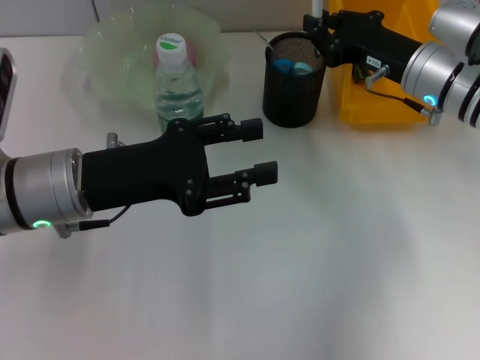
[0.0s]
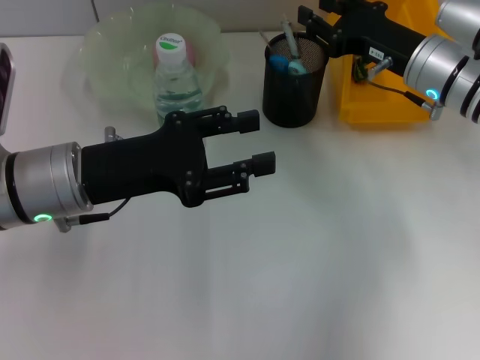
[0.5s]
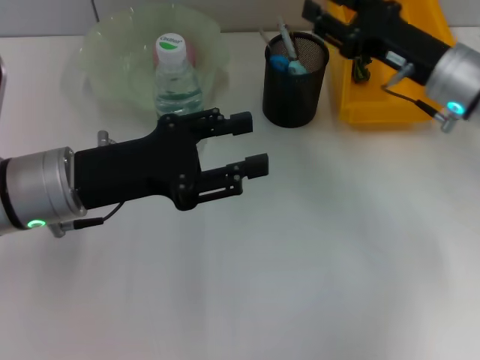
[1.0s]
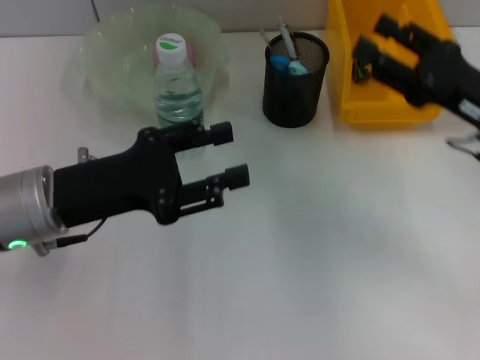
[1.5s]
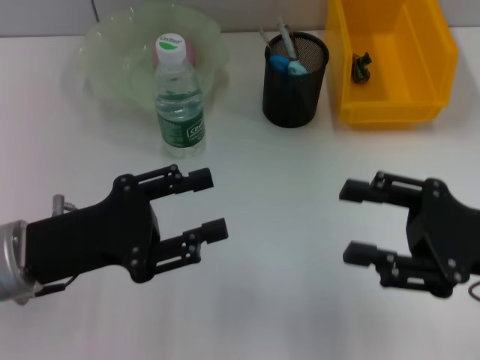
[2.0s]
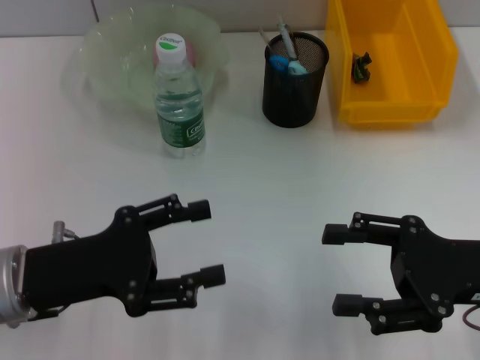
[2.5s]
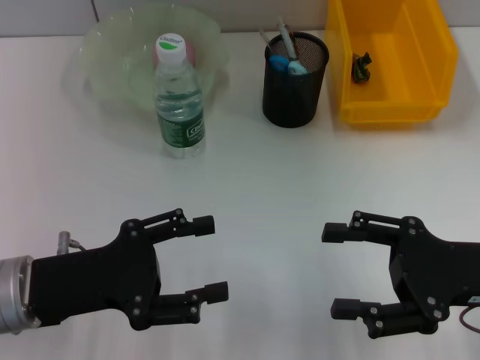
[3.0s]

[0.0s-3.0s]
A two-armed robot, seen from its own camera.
0.0s to 1.5s: The right gripper is displaced backward and to the right by some 10 cm, and opens.
1.5s to 3.0s: The right gripper travels backward by approximately 10 cm. Meanwhile the left gripper heads backward, covering roughly 5 cm.

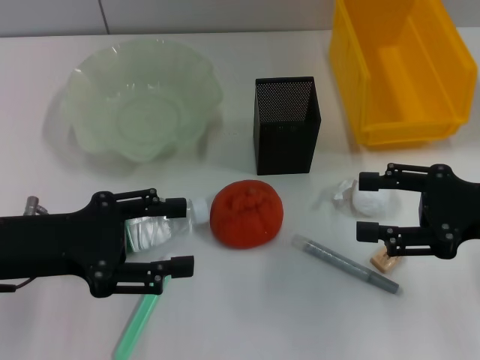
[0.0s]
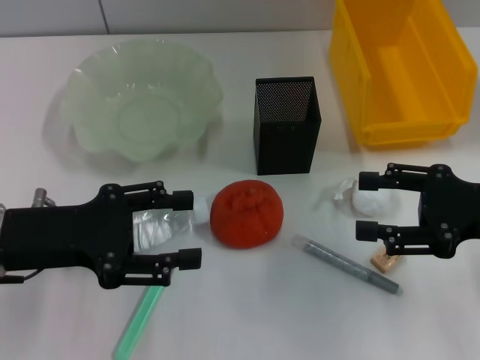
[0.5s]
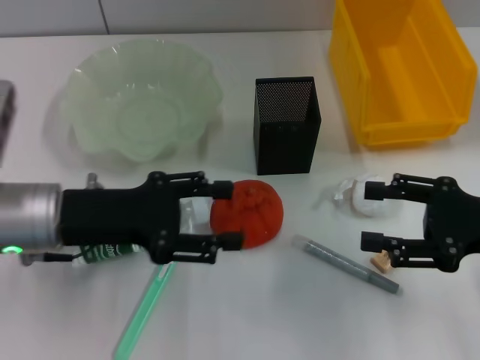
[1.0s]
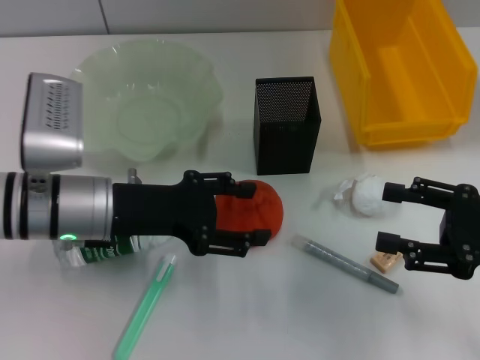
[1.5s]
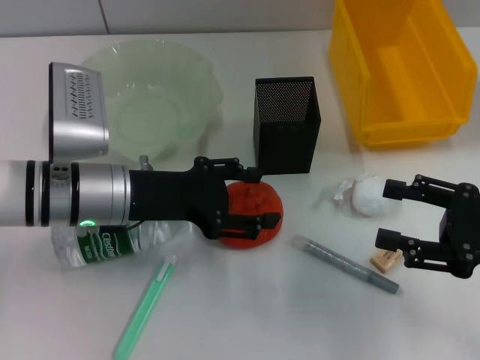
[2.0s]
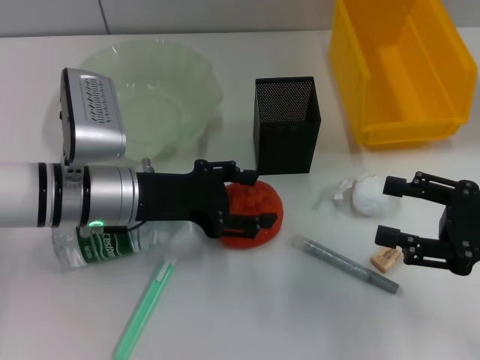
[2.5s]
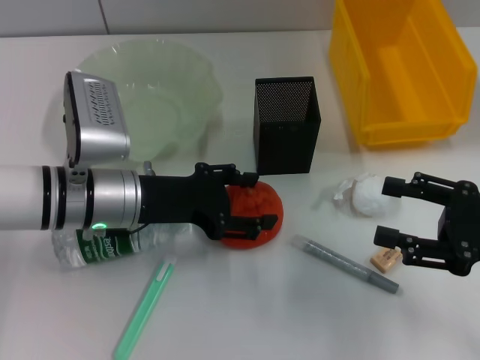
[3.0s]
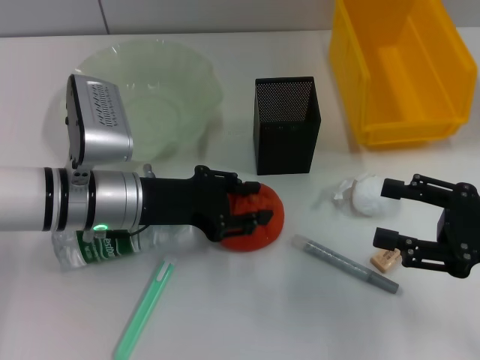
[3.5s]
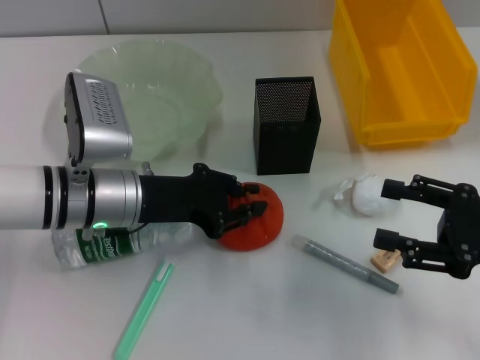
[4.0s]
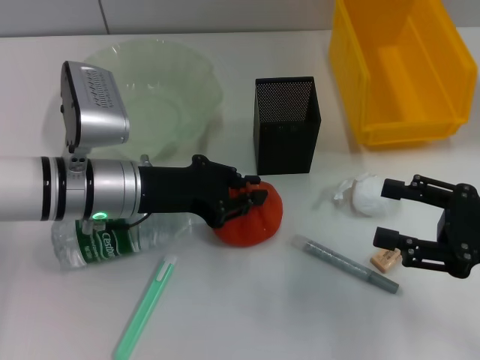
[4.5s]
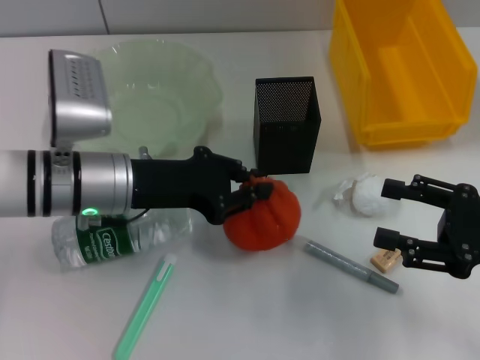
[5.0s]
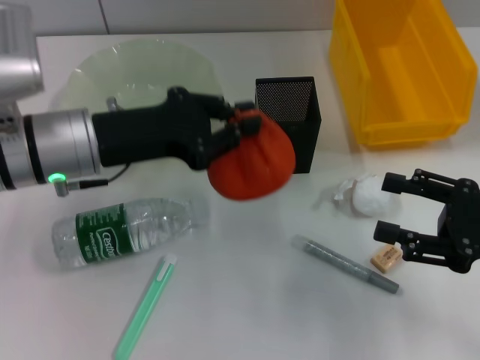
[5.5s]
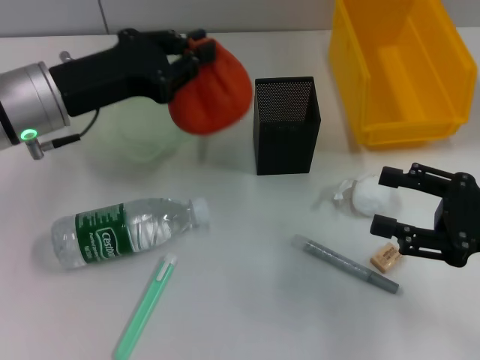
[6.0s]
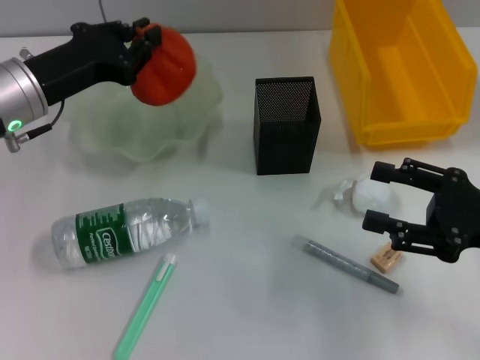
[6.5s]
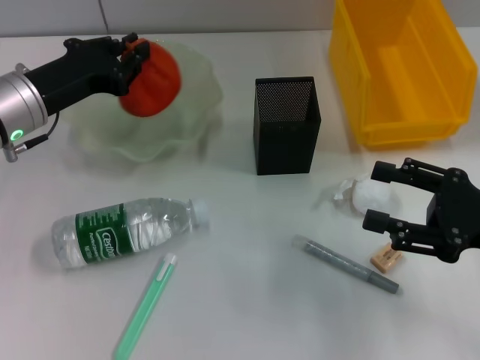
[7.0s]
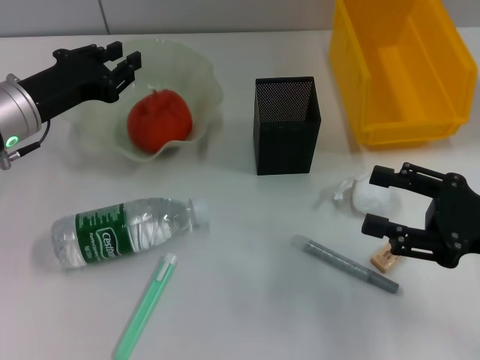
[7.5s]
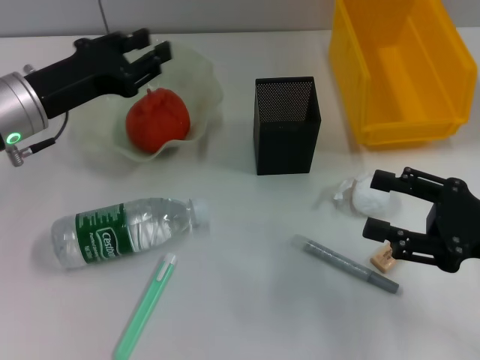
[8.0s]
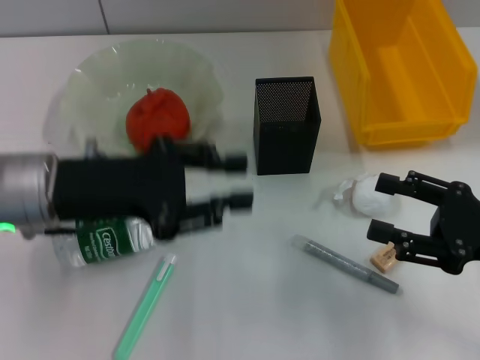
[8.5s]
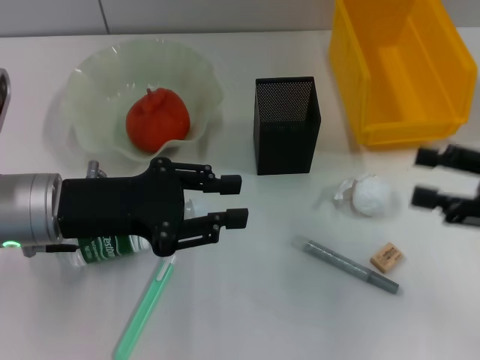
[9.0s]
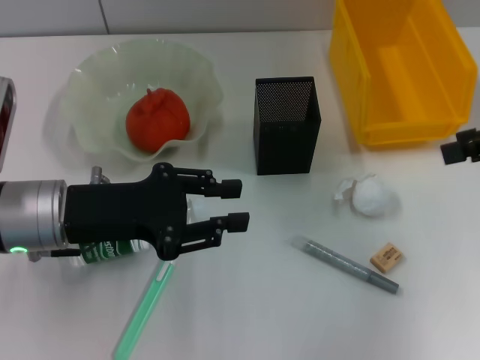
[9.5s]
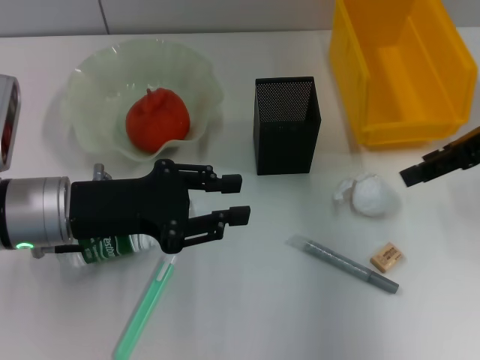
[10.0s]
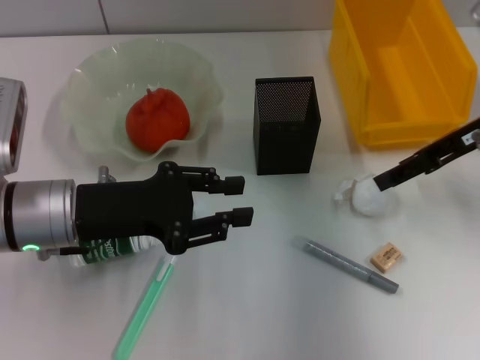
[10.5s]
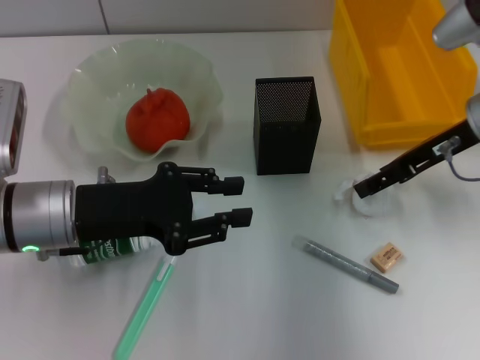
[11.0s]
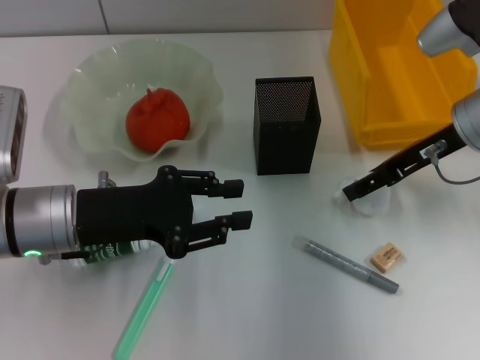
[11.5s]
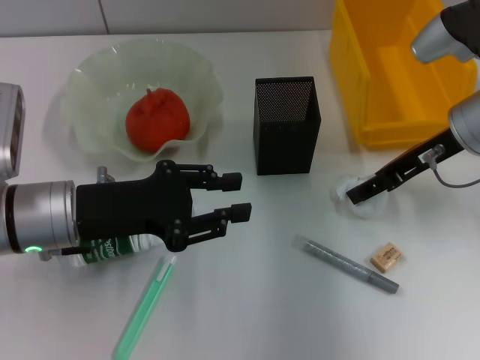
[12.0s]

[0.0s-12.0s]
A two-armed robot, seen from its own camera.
Step, 0.0s to 3.5s: Grab the orange with the left hand.
Step, 4.0s to 7.5s: Place the orange into the fruit bowl with the left hand.
Step, 8.0s to 12.0s: Grab the paper ball with the right hand.
0.0s to 2.0s: The left gripper moves to the right and forward, roughly 10 cm.
2.0s to 4.0s: The left gripper closes its fingers.
4.0s to 6.0s: The left gripper shifts approximately 10 cm upward.
6.0s to 8.0s: The left gripper opens its fingers.
8.0s to 10.0s: The left gripper shifts approximately 5 cm backward; the right gripper travels forward and upward by some 15 cm.
10.0s to 12.0s: The right gripper moves to the left and downward, about 10 cm.

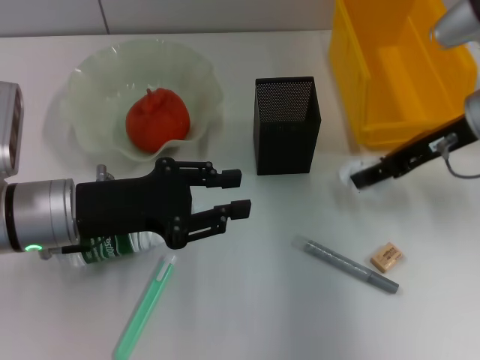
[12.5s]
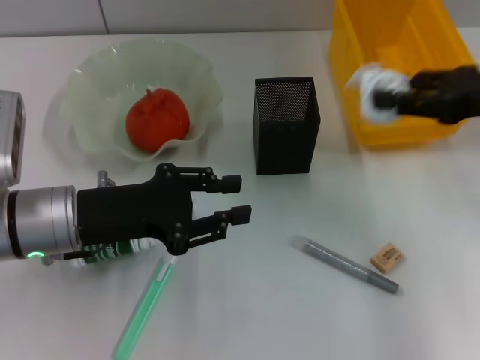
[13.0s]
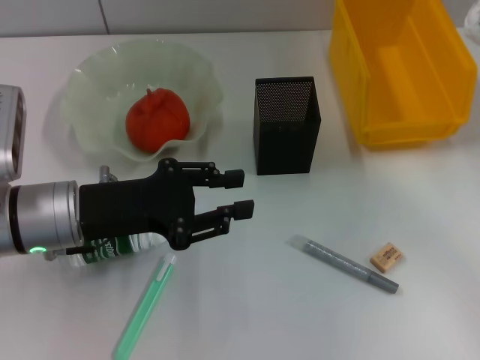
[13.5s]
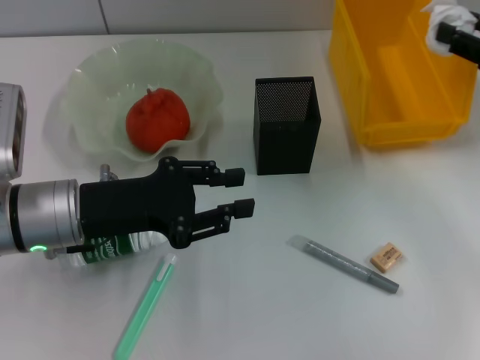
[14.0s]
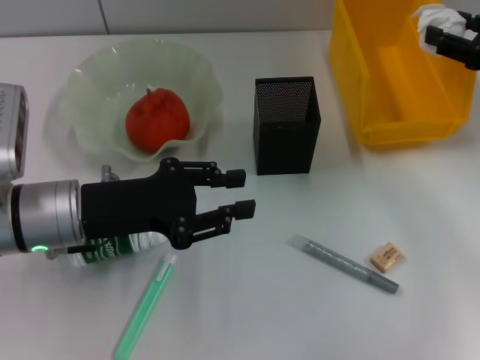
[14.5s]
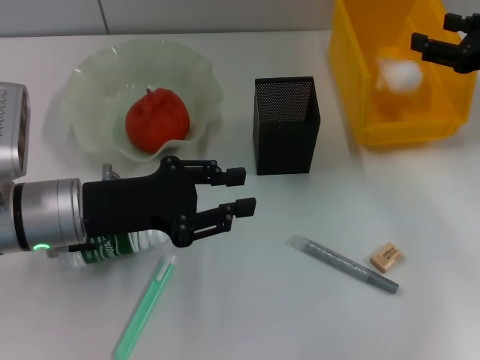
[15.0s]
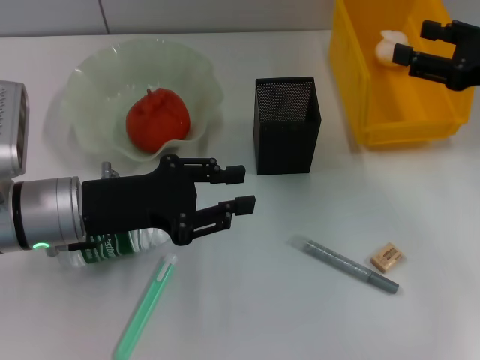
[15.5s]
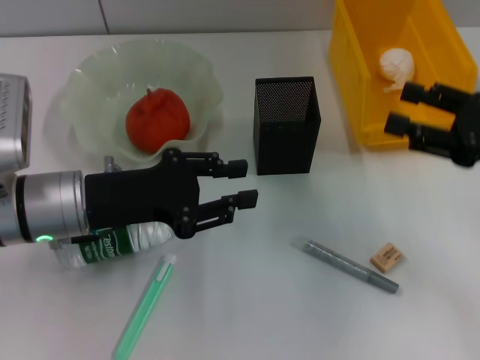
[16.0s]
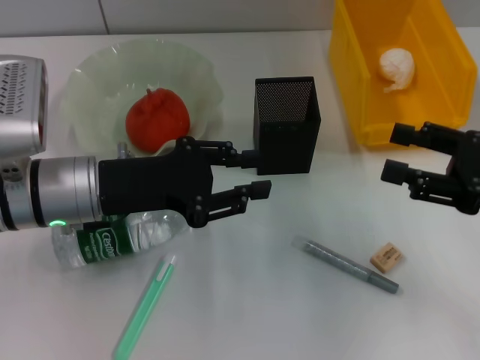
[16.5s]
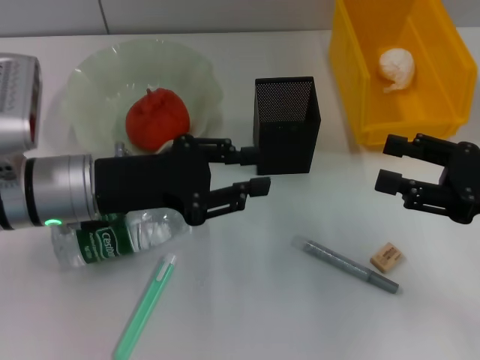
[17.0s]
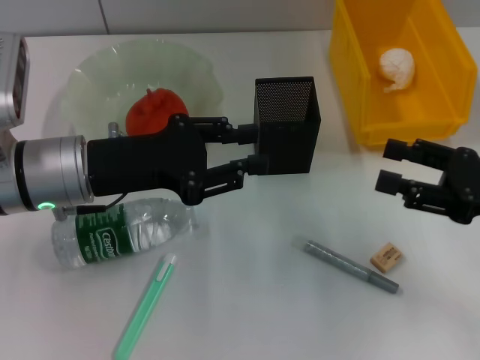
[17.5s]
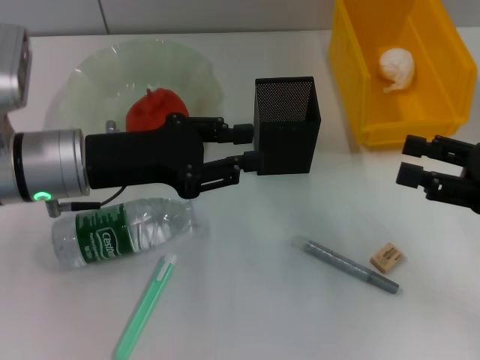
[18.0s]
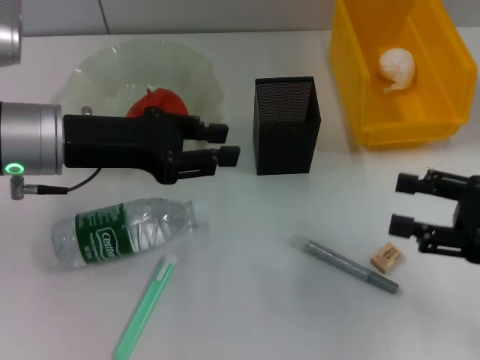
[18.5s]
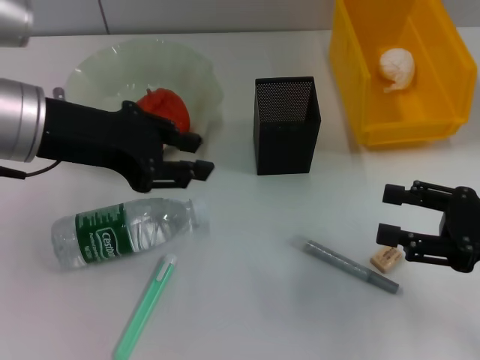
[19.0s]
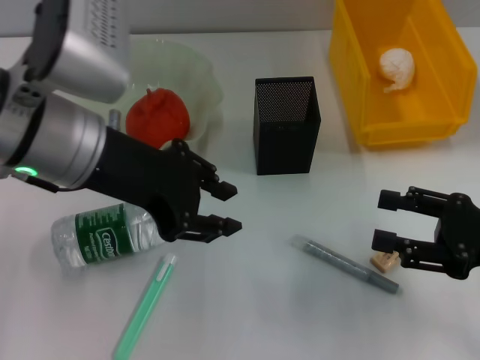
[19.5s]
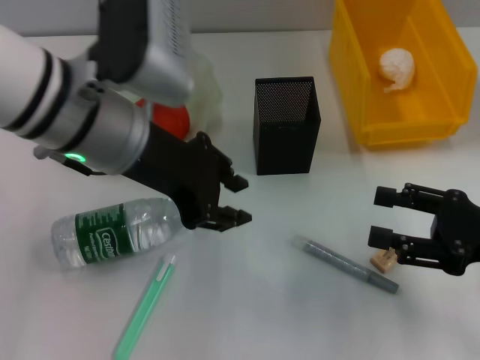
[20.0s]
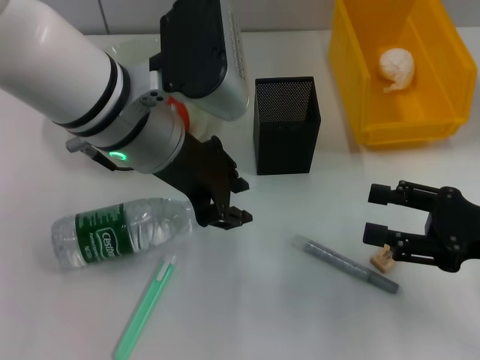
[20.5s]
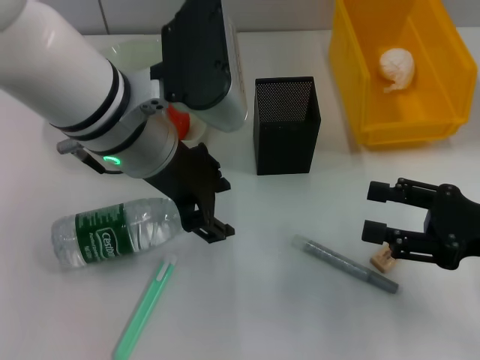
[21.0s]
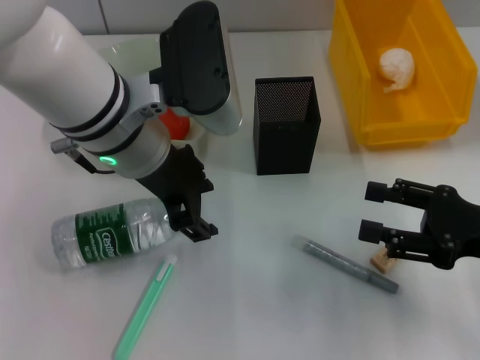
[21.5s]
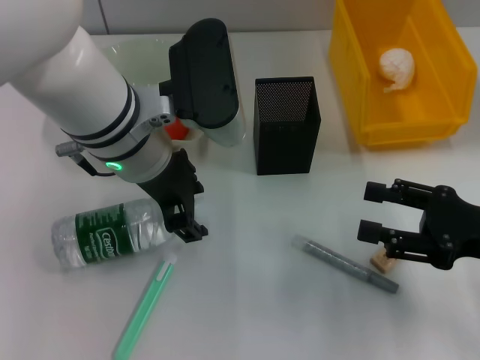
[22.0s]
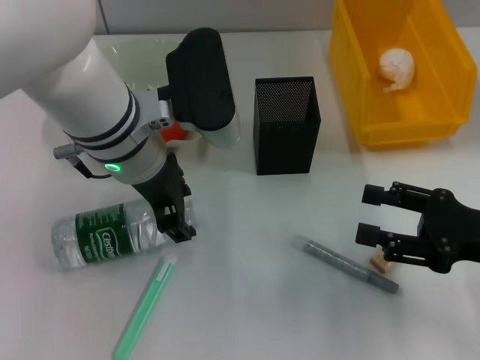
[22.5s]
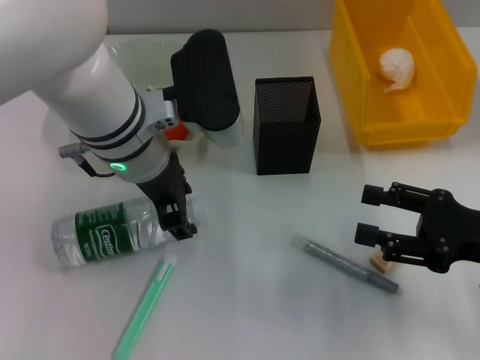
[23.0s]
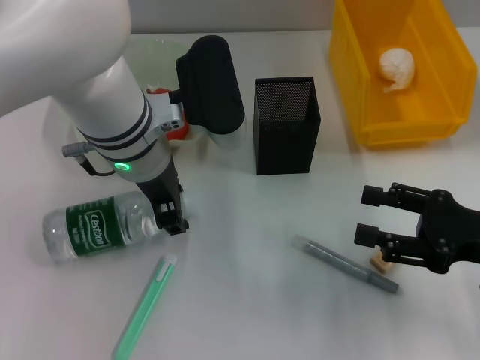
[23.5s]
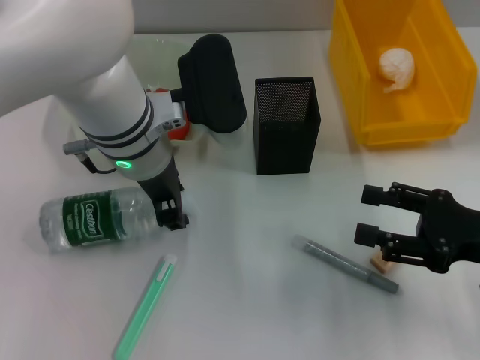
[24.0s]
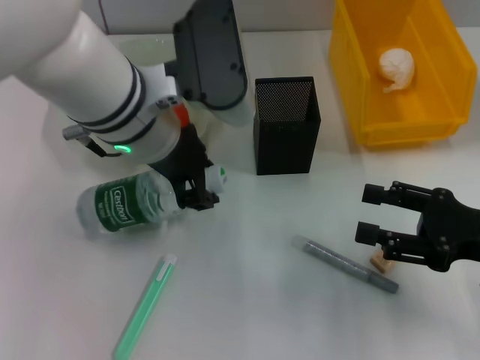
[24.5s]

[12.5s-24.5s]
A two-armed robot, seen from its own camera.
Step, 12.5s to 15.0s: Place the paper ball into the trash can with the right hand.
Step, 15.5s to 23.5s: Grab the water bottle with the left hand.
12.5s to 14.5s: The right gripper moves to the right, about 10 cm.
14.5s to 16.5s: The right gripper travels backward by approximately 10 cm.
16.5s to 18.5s: The left gripper travels upward by roughly 5 cm.
18.5s to 20.5s: The left gripper heads to the right, covering roughly 10 cm.
20.5s to 22.5s: The grippers stay close to where they were, moving slightly.
22.5s to 24.5s: There are only small adjustments of the grippers.
